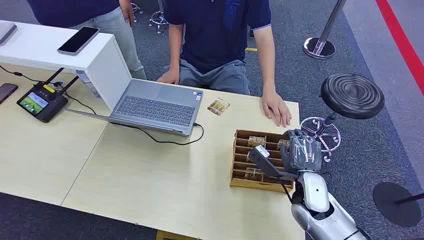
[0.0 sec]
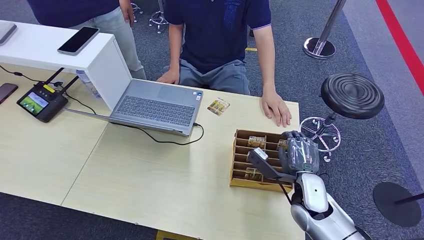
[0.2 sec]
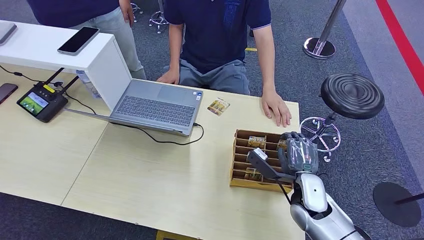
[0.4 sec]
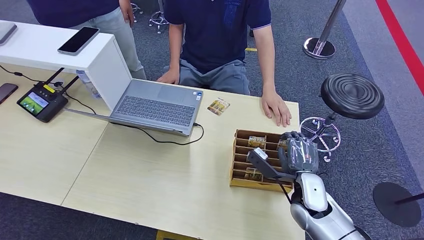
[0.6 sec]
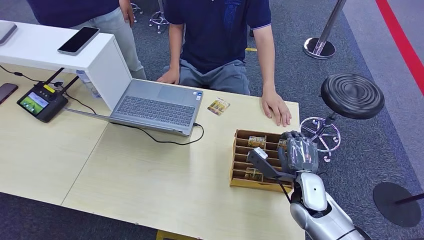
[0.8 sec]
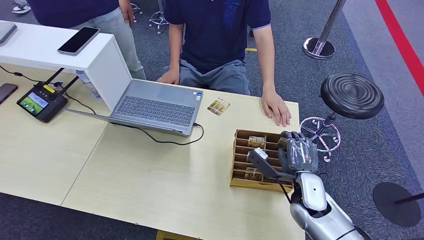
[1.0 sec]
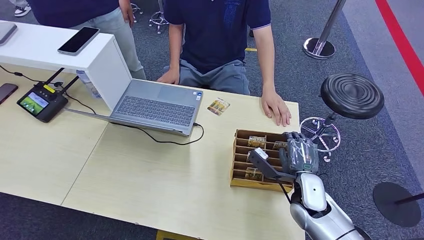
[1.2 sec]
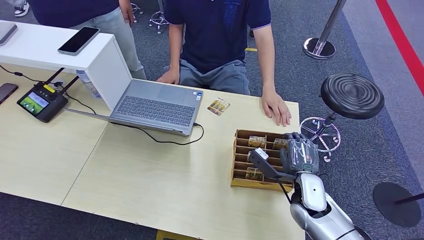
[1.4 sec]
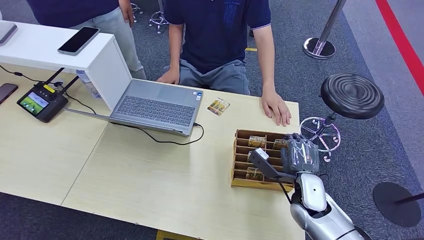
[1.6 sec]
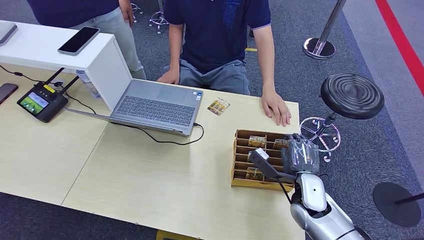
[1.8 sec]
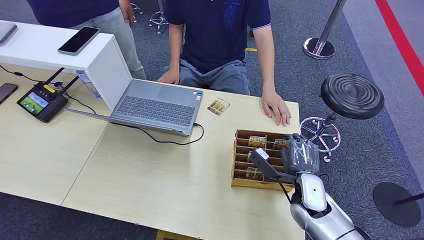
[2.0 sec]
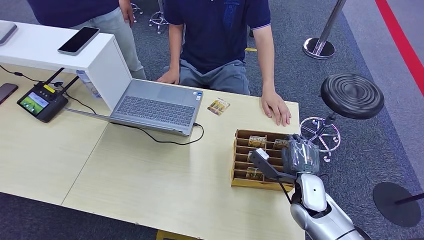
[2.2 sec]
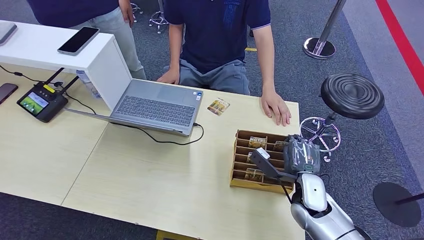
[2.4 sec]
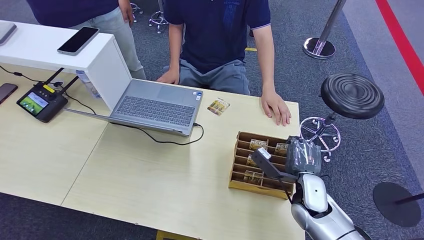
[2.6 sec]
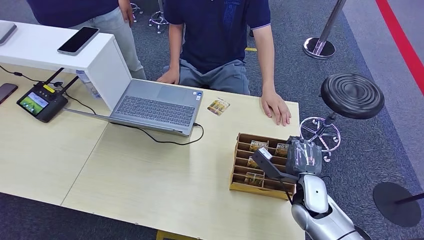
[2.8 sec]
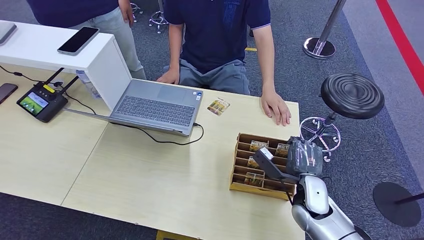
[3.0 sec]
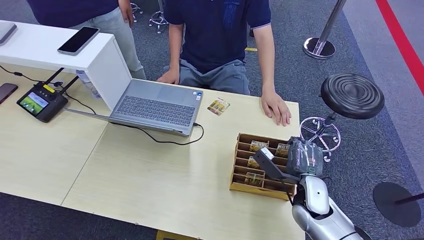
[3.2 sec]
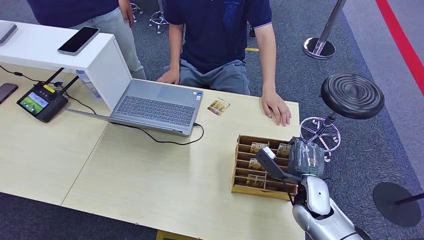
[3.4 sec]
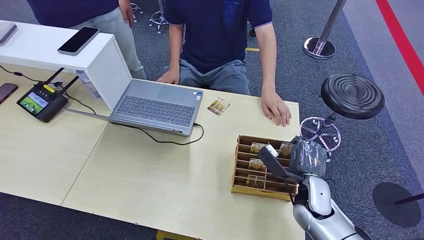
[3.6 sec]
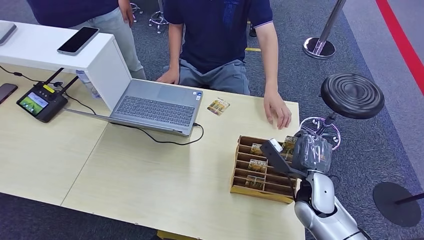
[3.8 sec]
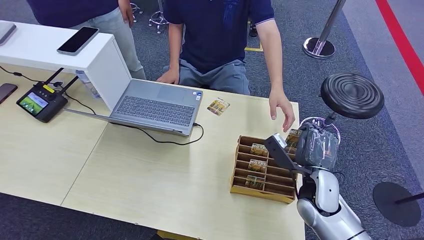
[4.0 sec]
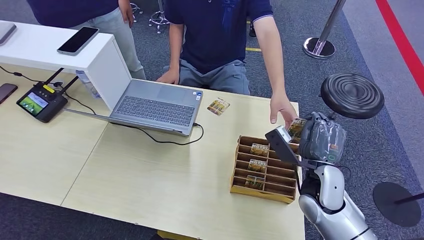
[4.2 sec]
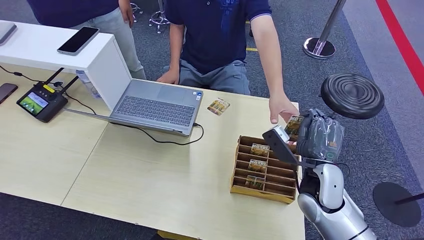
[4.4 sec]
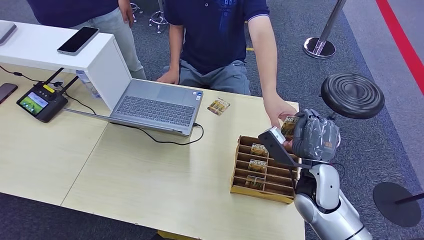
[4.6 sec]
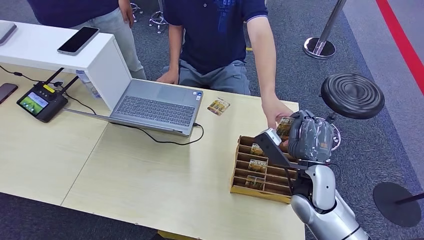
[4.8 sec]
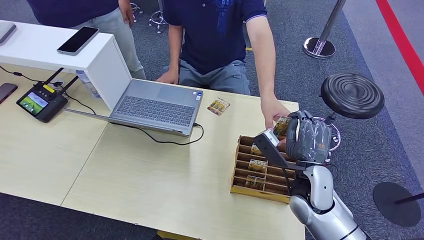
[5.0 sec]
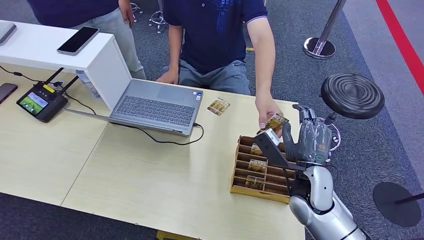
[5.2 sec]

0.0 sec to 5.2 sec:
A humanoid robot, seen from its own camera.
Step, 0.0 sec to 4.0 sec: Pick up the room card from the card holder.
Step, 4.2 sec to 5.2 sec: Hand the room card to the target.
1.8 sec to 3.4 sec: There are only small adjustments of the hands.
3.4 sec to 5.2 sec: The right hand is displaced upward by about 5 cm.
